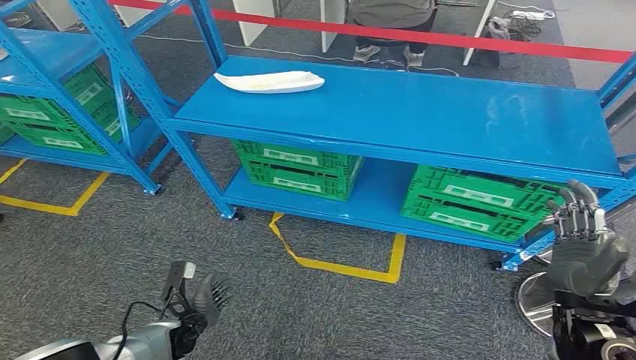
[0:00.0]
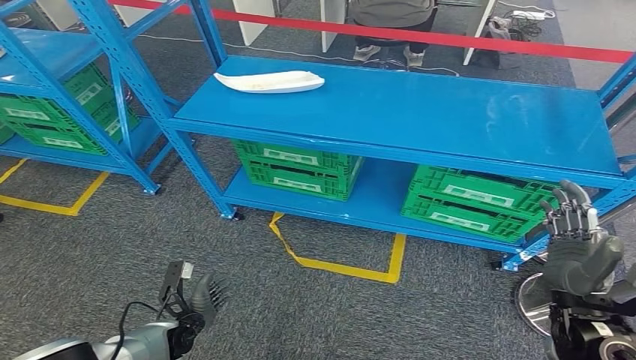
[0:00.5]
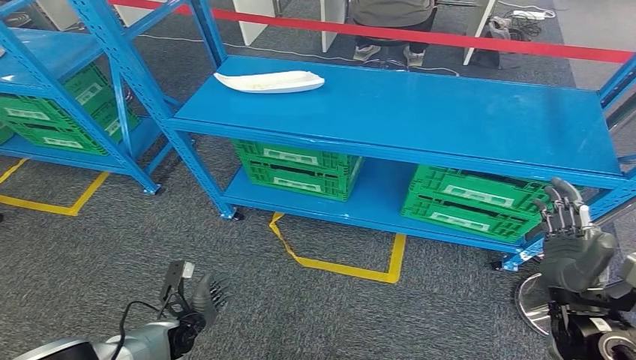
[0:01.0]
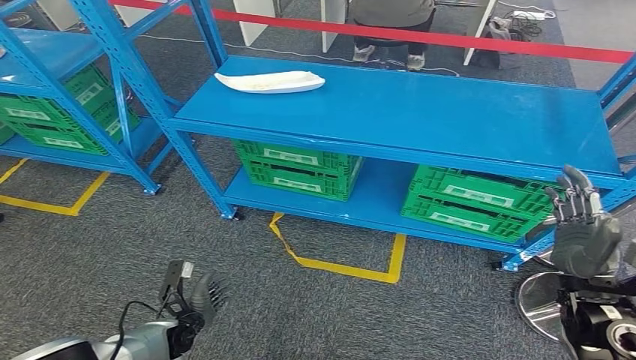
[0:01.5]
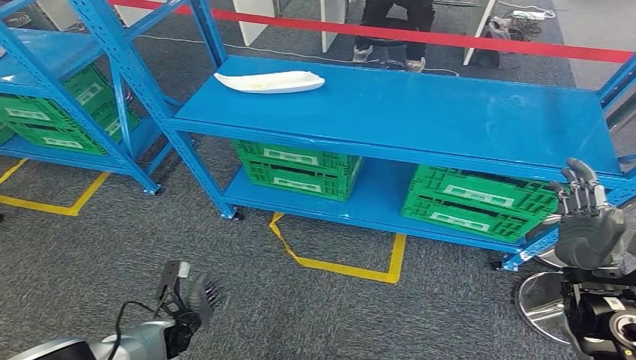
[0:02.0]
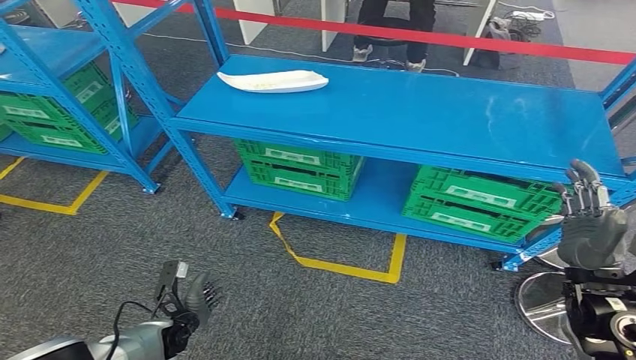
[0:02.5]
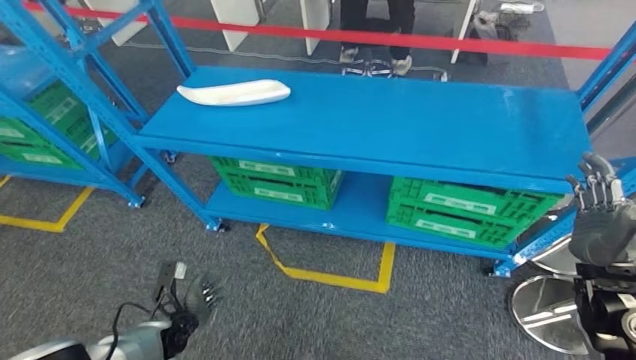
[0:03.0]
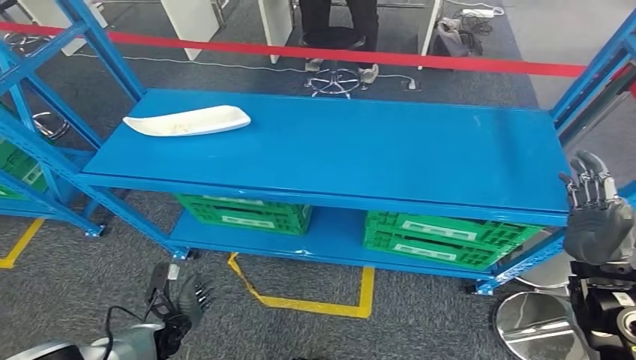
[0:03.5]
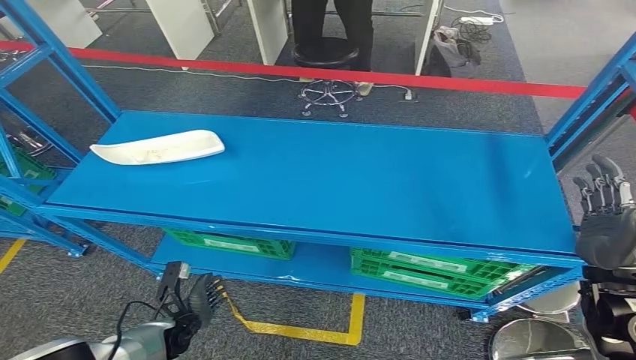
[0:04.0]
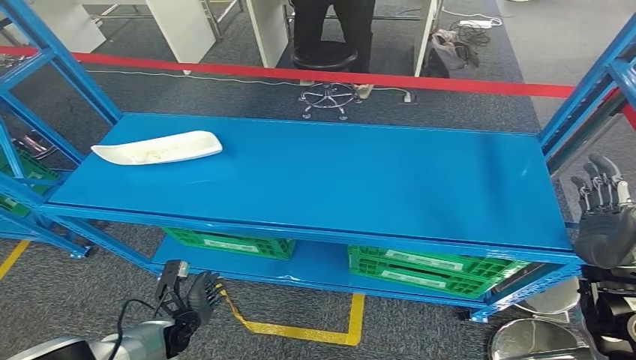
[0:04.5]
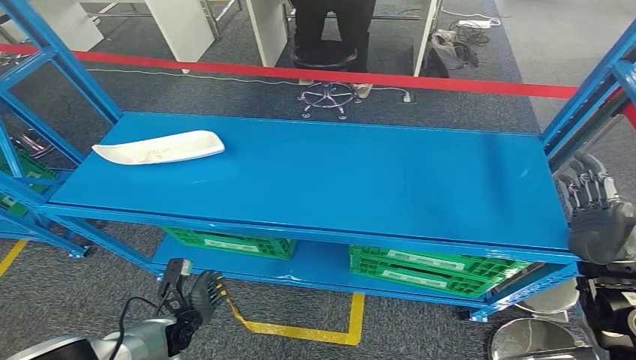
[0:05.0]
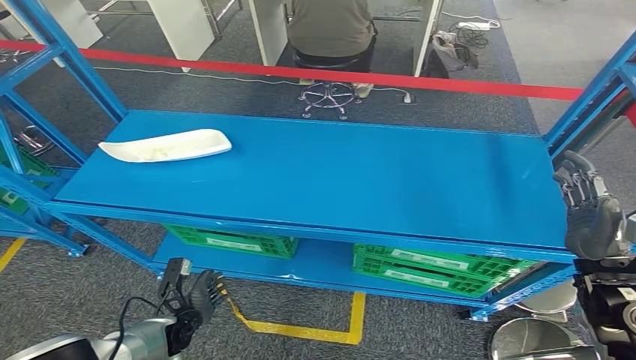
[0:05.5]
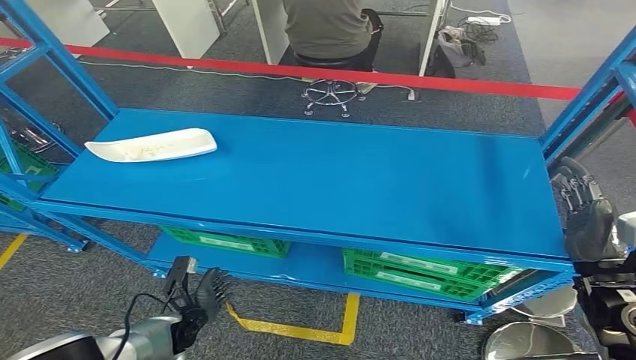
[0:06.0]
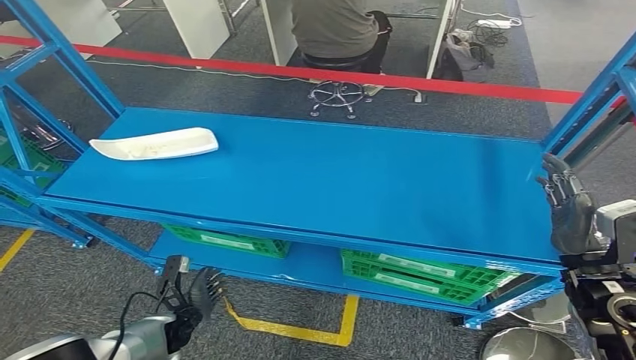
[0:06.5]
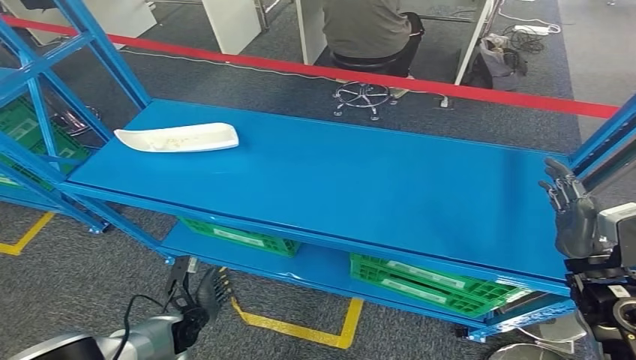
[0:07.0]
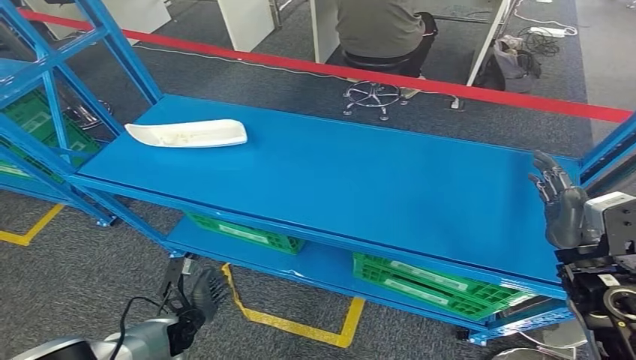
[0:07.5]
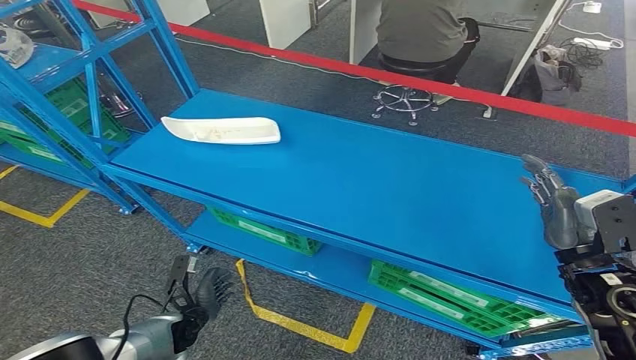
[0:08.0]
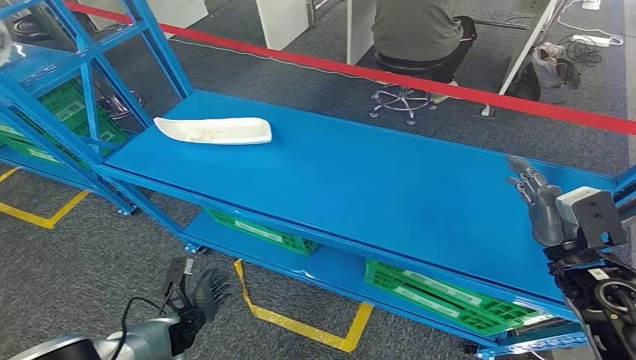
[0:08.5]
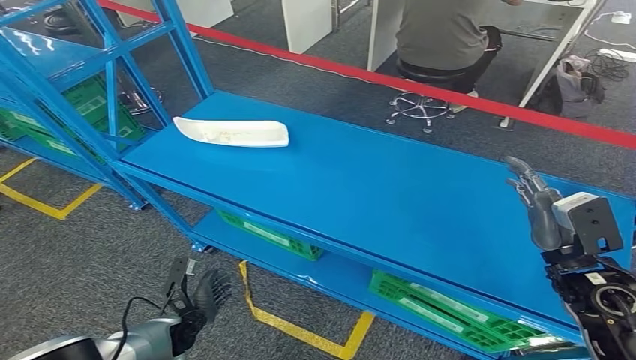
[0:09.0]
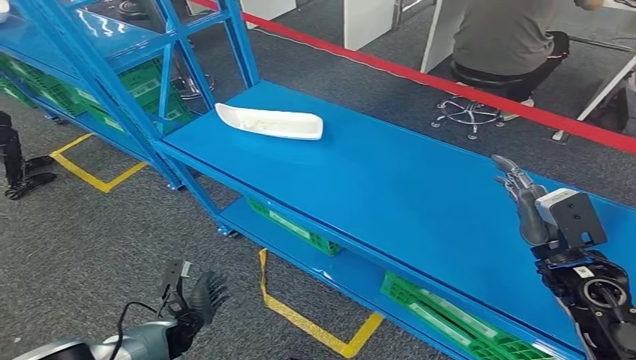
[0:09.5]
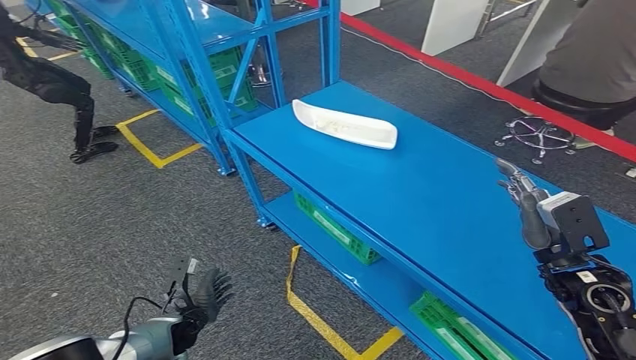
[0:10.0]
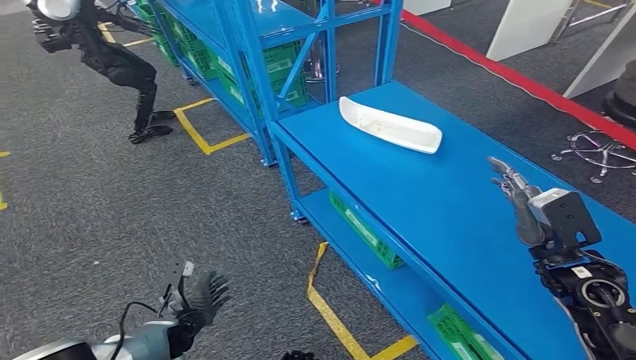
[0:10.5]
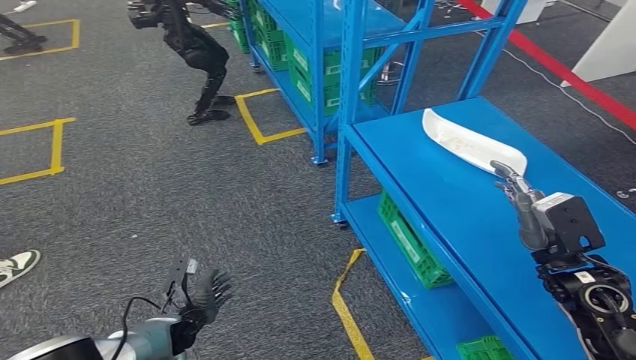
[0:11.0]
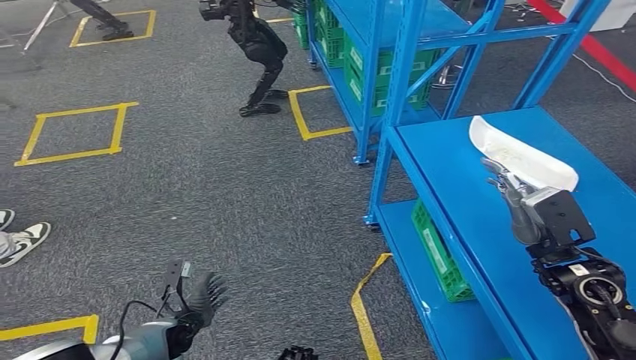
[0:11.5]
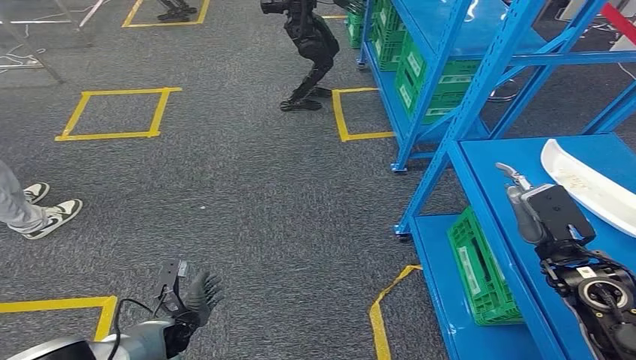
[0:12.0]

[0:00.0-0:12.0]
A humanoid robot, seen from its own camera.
0:04.0 to 0:06.0: The hands move only a little.

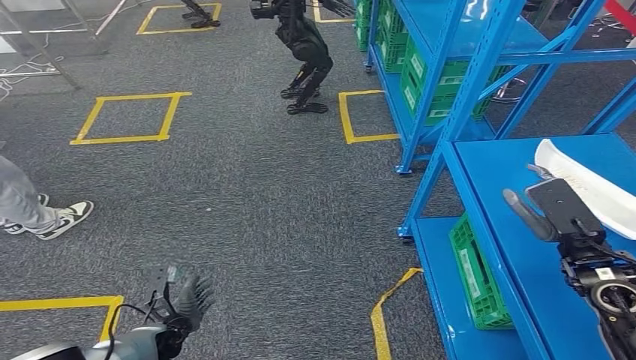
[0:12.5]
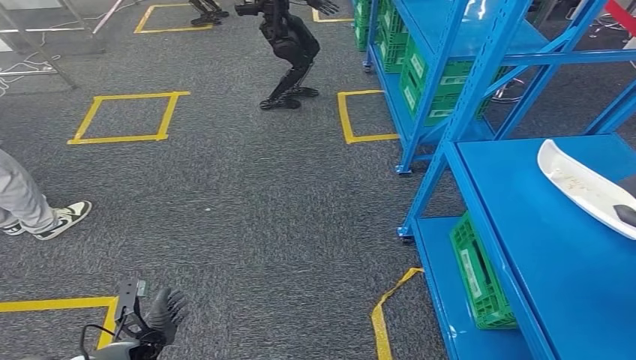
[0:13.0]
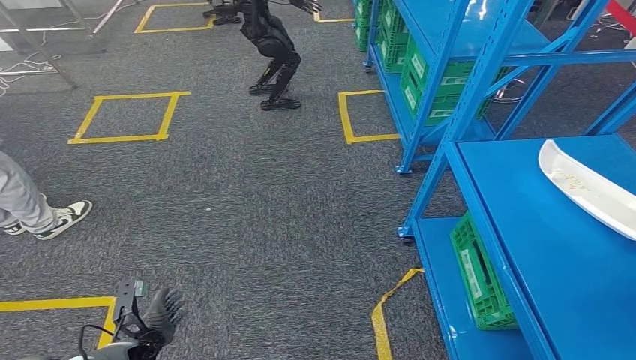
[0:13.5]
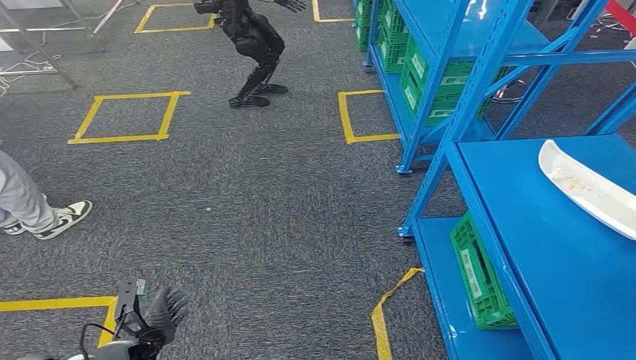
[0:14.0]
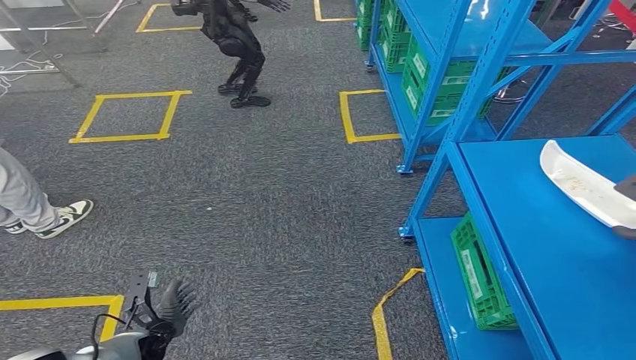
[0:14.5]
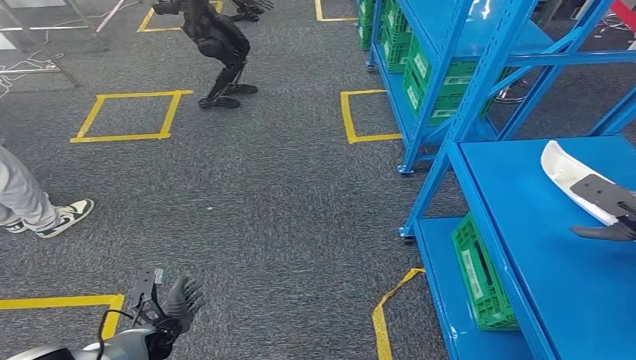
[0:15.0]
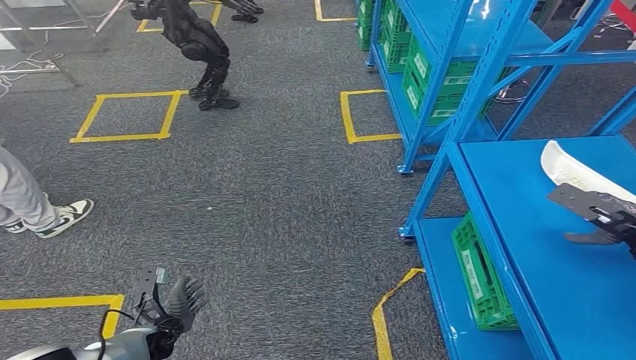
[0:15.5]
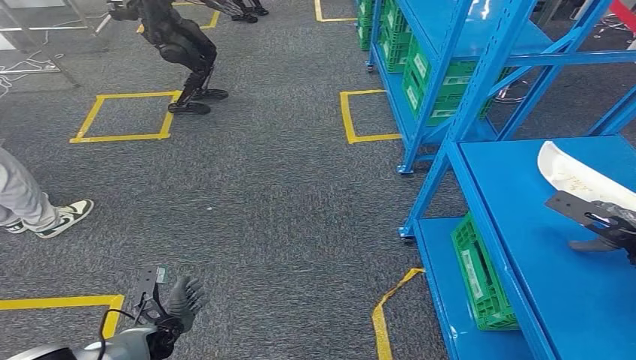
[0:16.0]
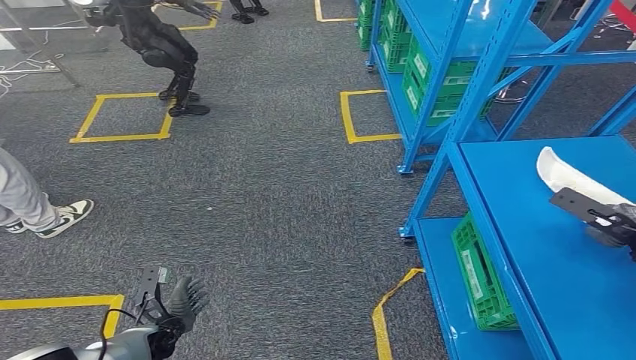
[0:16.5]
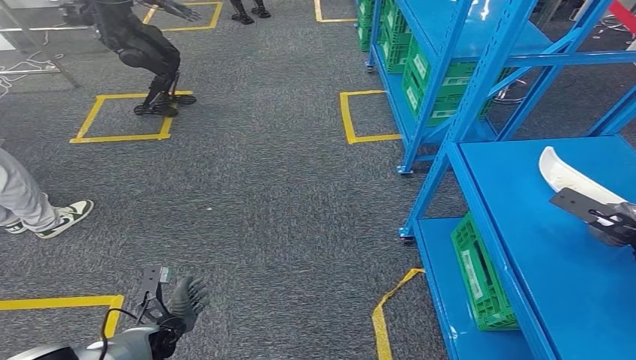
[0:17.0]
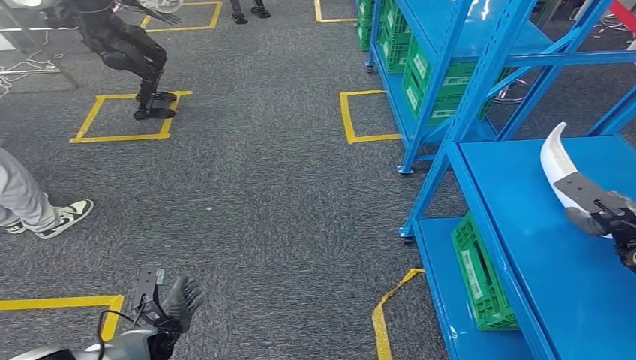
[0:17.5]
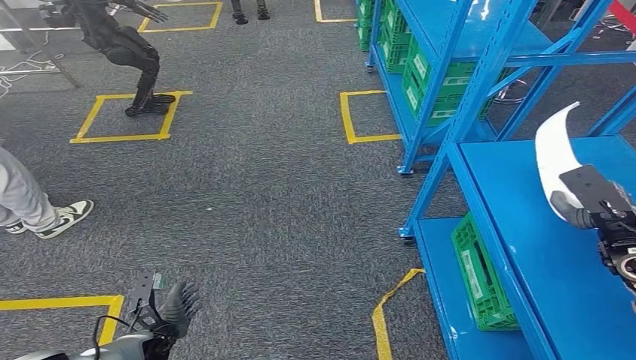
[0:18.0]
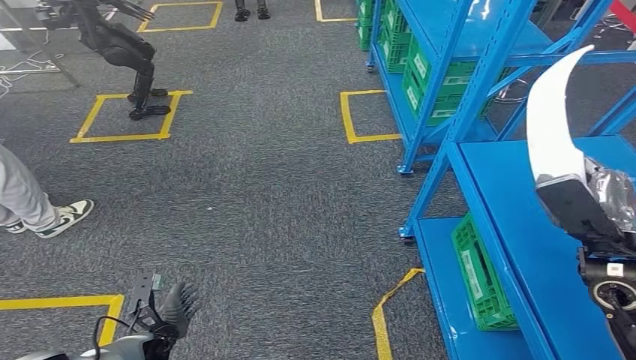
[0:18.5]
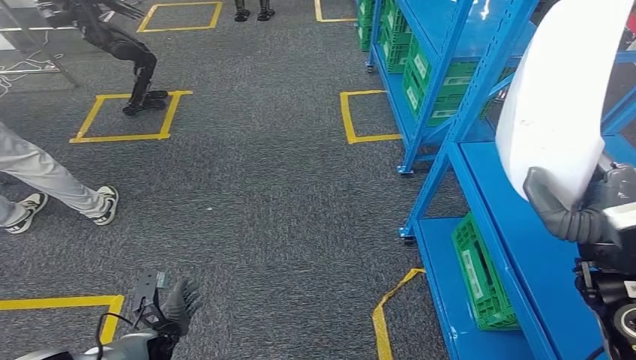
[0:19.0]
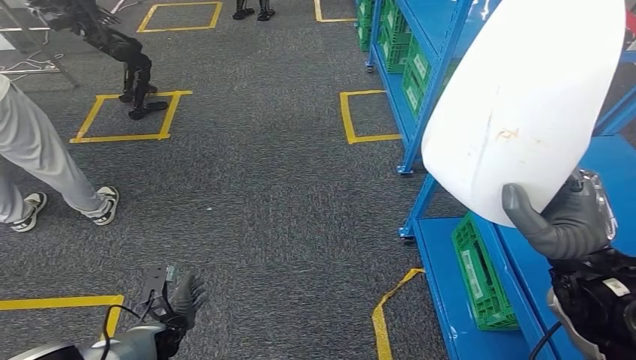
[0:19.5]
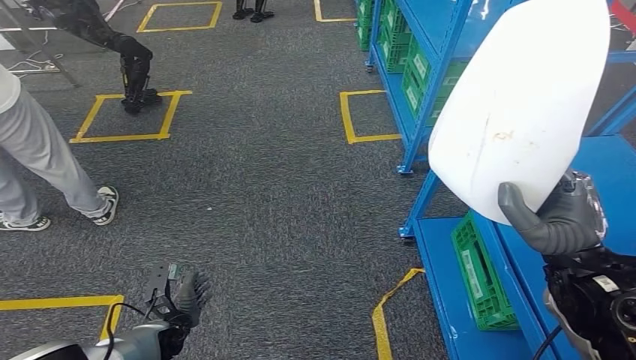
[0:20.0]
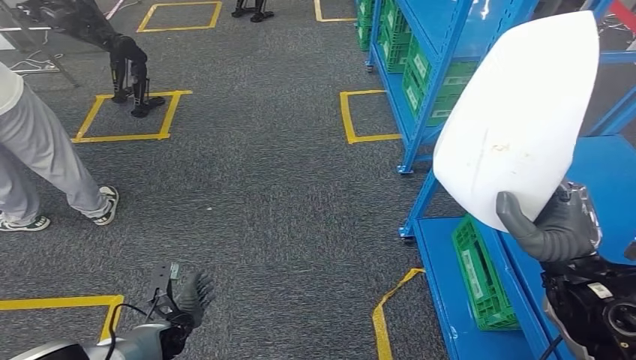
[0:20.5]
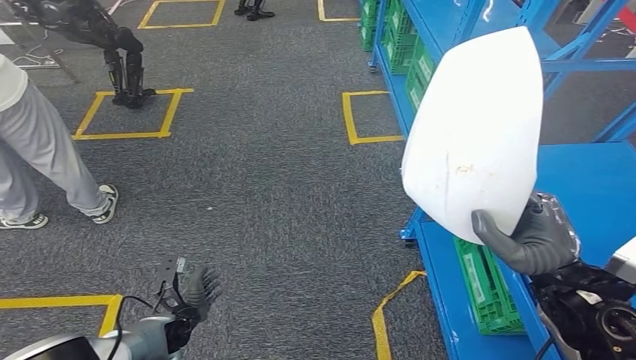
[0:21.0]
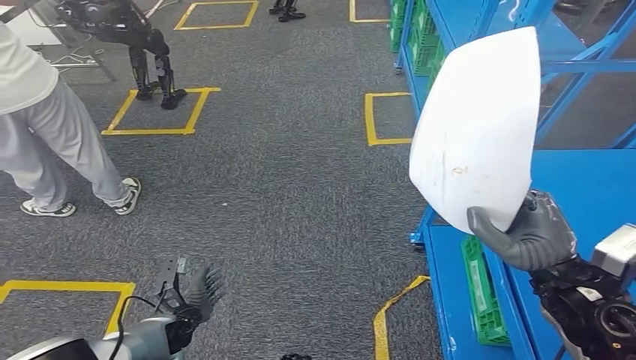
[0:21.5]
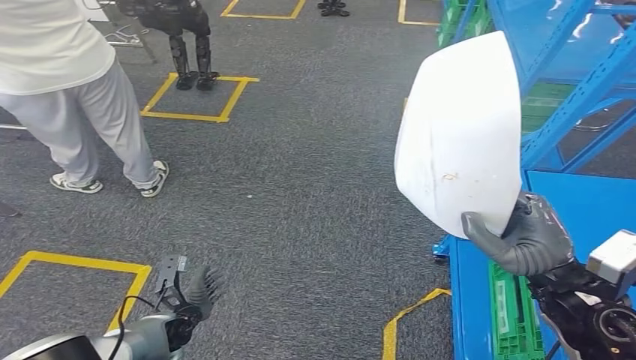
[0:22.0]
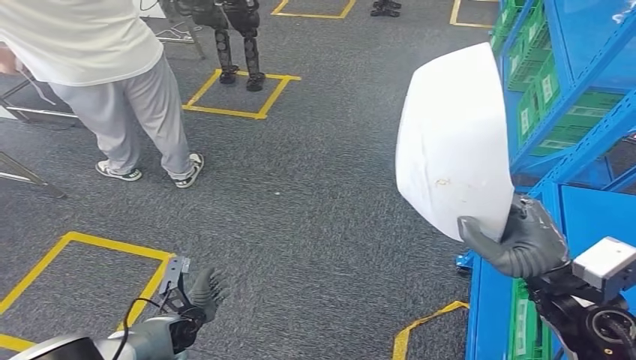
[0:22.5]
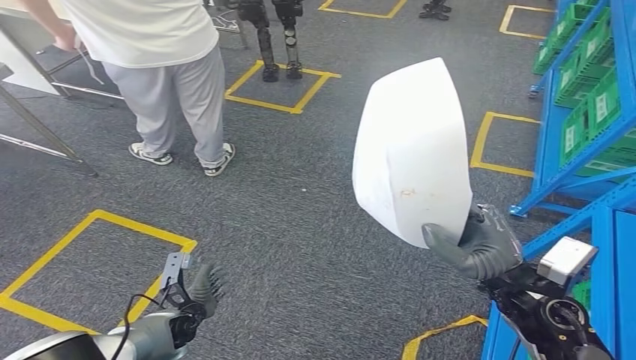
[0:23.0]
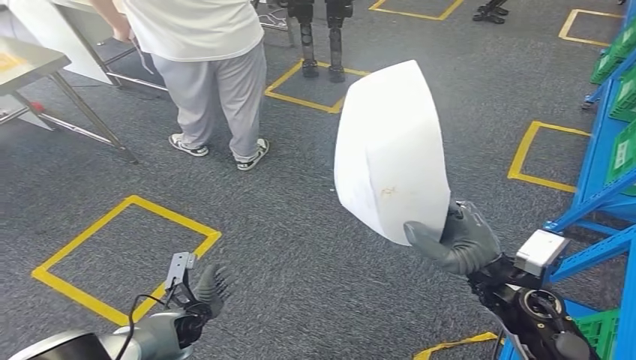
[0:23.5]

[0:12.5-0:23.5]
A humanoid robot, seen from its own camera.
Step, 0:12.5 to 0:20.0: Pick up the small component from the shelf.
0:12.5 to 0:14.5: The right hand shifts about 15 cm to the right.
0:14.5 to 0:16.0: The right hand heads downward, covering approximately 5 cm.
0:16.0 to 0:18.0: The right hand travels to the left by roughly 5 cm.
